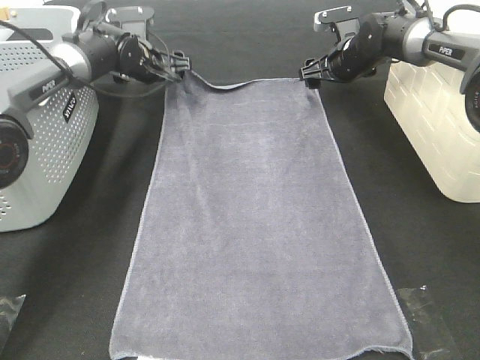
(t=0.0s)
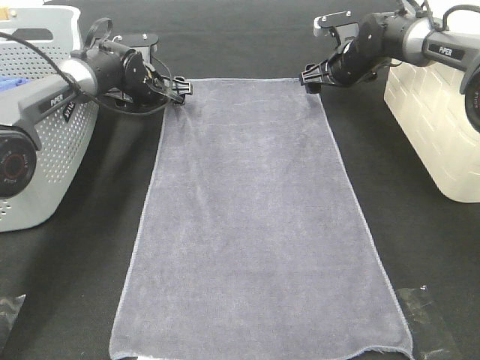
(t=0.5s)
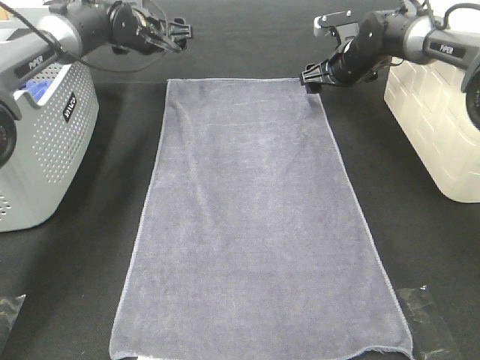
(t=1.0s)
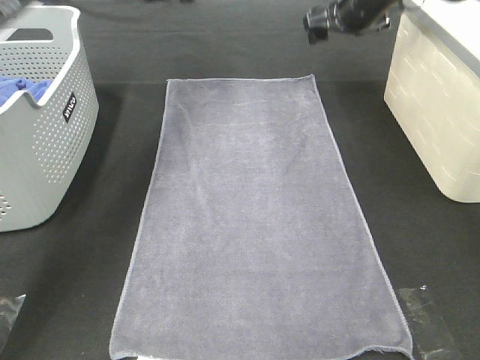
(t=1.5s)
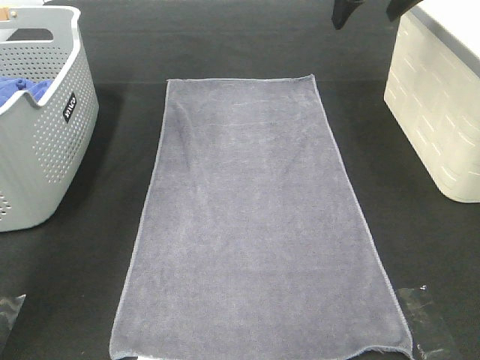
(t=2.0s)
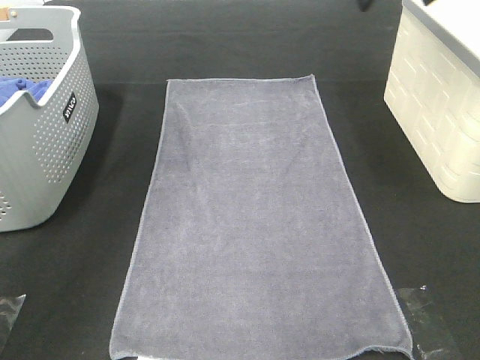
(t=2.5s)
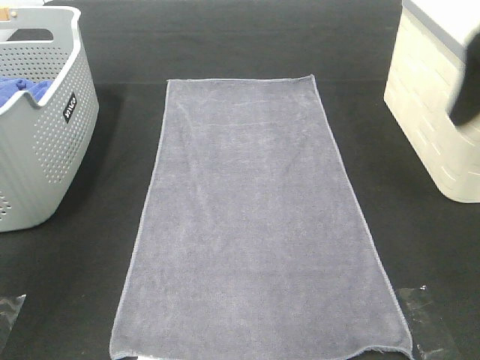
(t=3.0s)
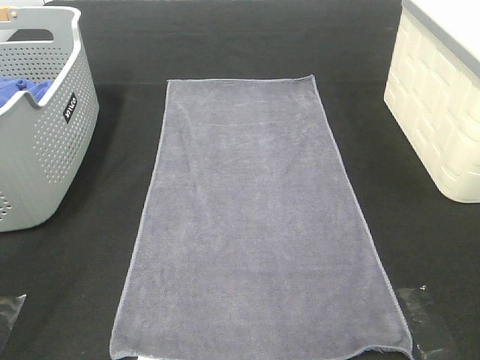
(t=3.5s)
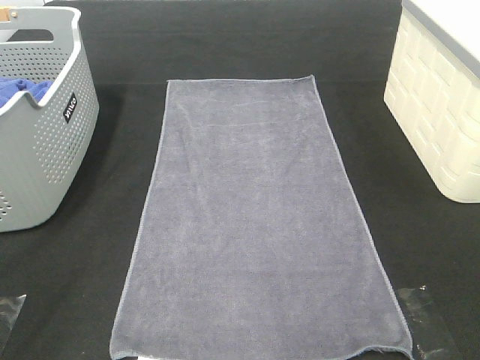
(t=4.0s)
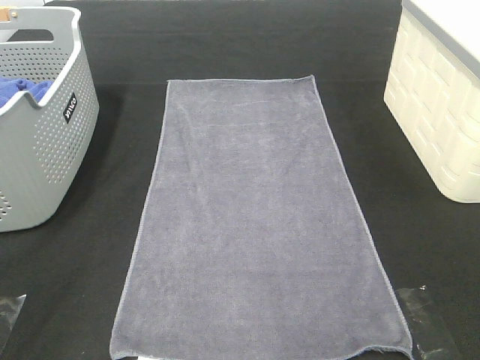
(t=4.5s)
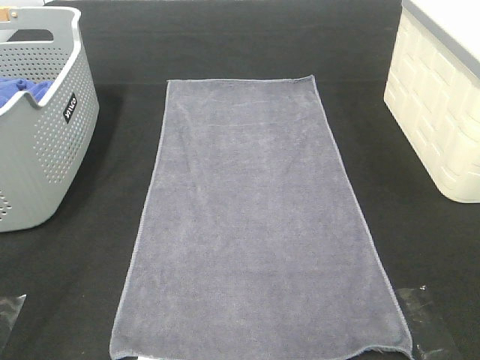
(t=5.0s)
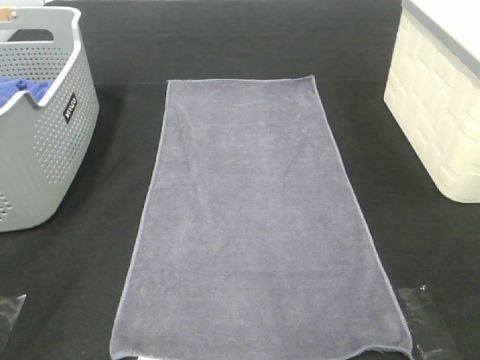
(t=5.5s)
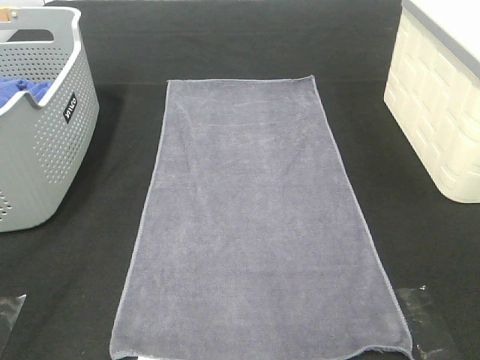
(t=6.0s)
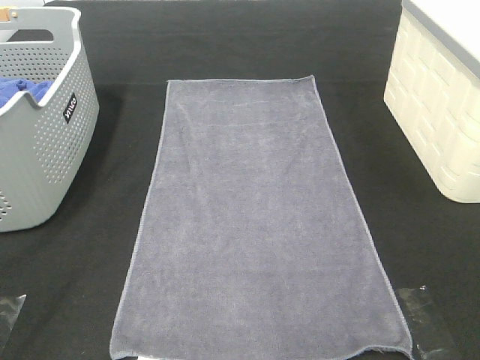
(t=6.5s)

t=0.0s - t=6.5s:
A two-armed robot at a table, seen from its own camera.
Task of the whole recording: Remove the towel and place it.
t=0.0s - t=2.0s: Both grippers move upward and backward, some 25 cm.
t=2.0s - t=4.5s: The two grippers go roughly 40 cm backward.

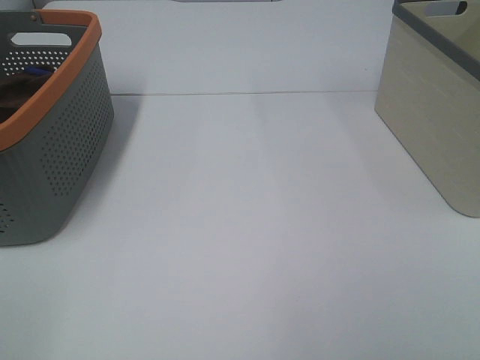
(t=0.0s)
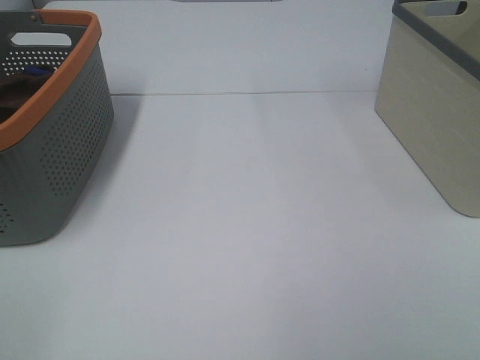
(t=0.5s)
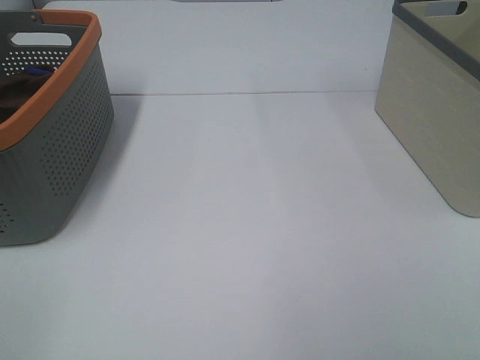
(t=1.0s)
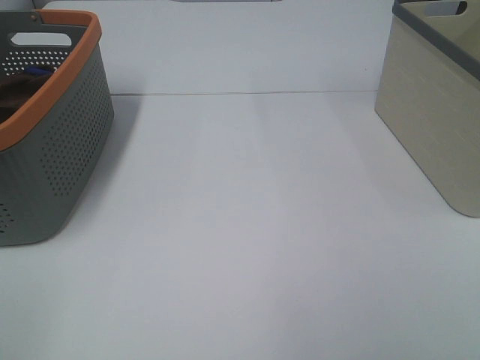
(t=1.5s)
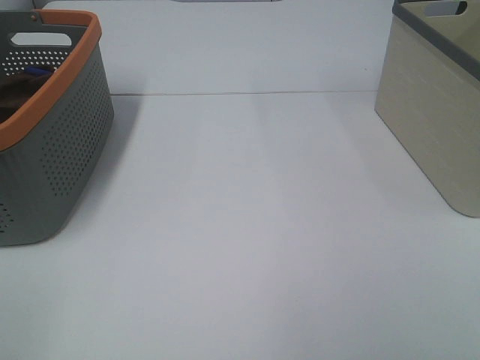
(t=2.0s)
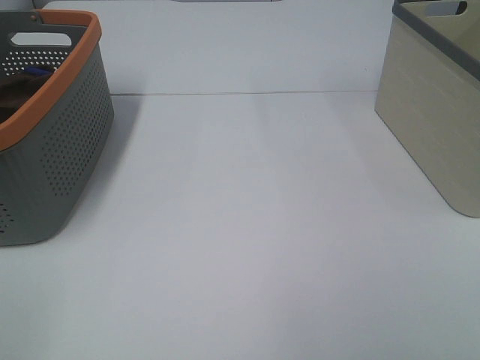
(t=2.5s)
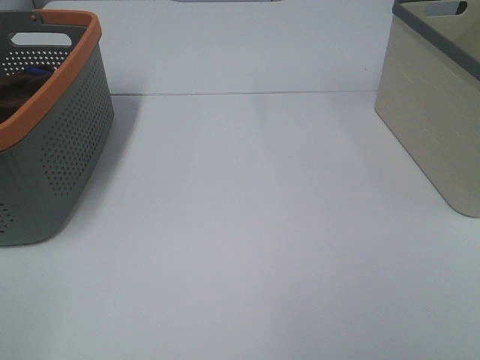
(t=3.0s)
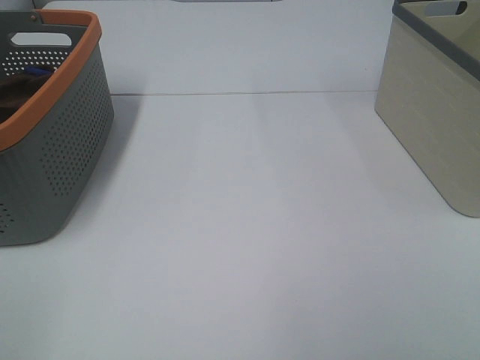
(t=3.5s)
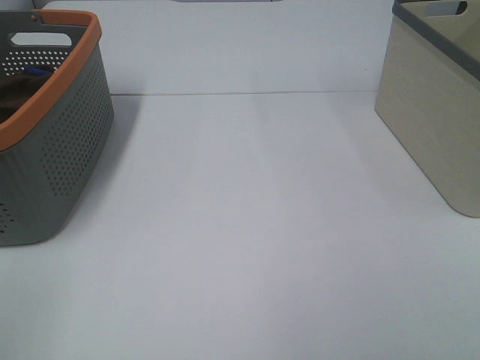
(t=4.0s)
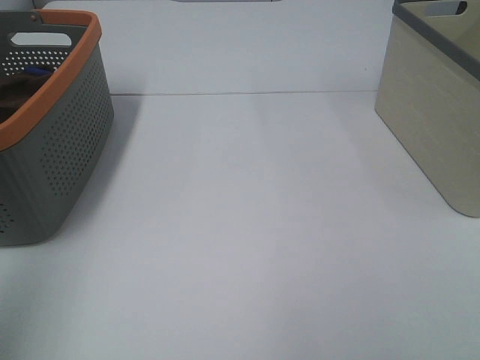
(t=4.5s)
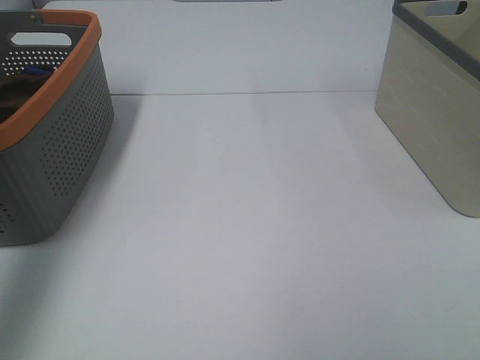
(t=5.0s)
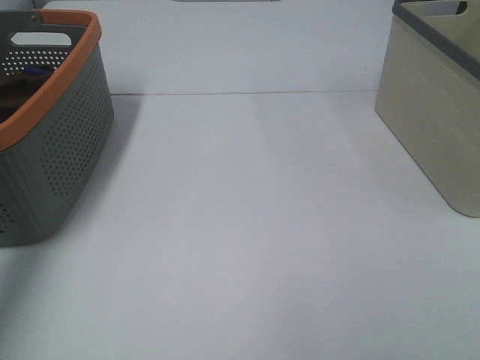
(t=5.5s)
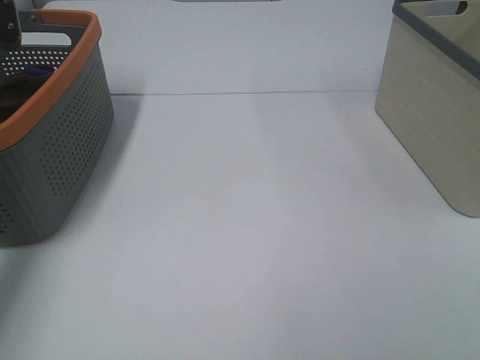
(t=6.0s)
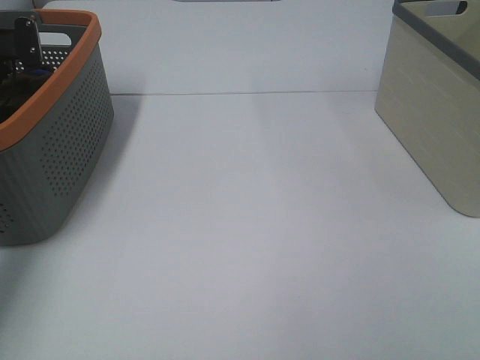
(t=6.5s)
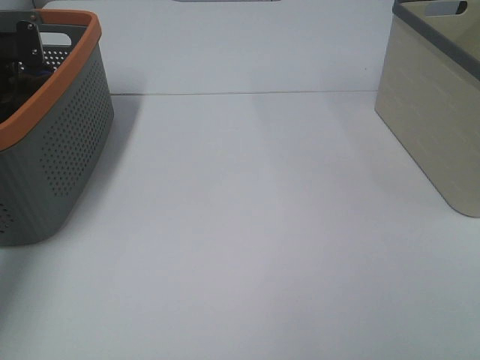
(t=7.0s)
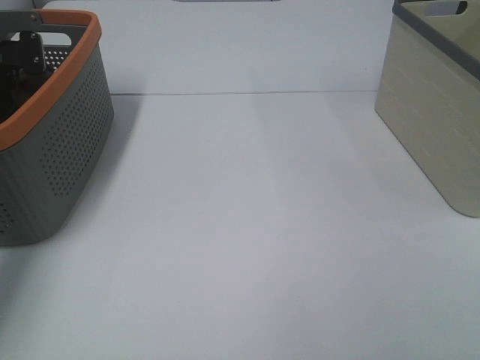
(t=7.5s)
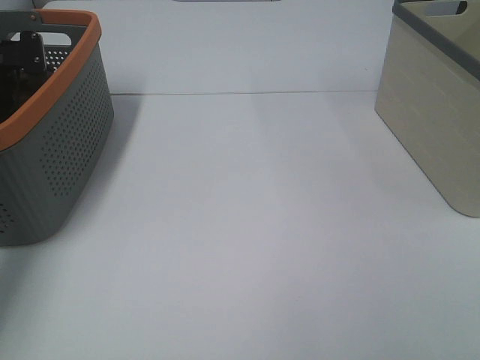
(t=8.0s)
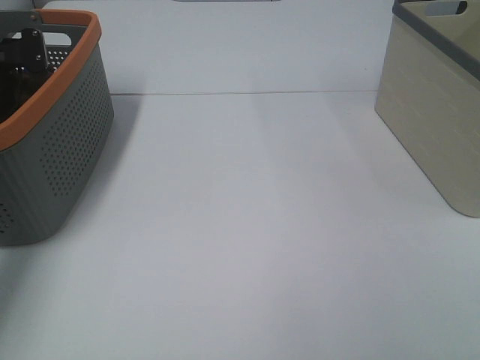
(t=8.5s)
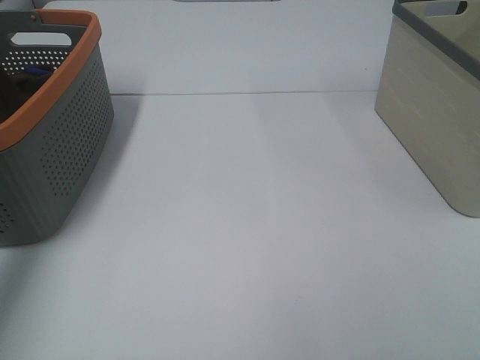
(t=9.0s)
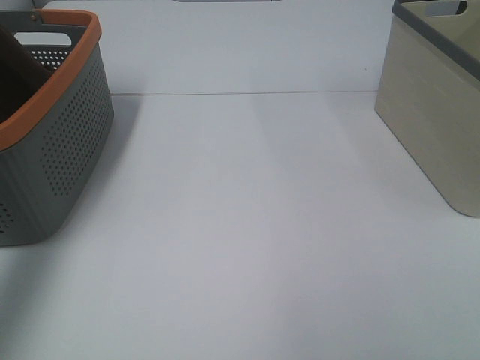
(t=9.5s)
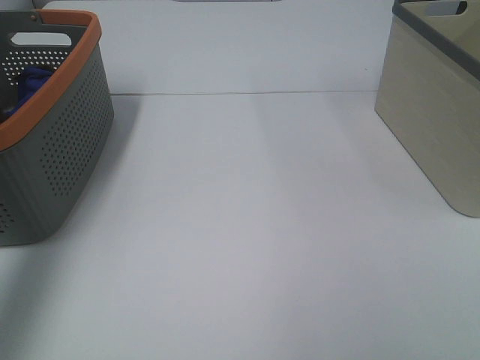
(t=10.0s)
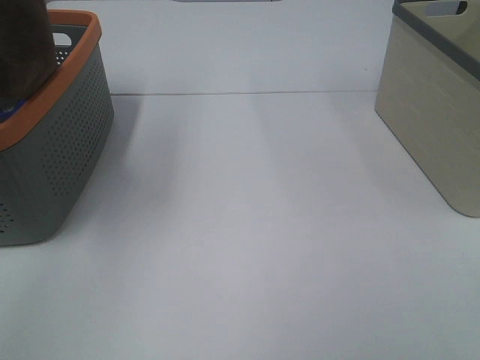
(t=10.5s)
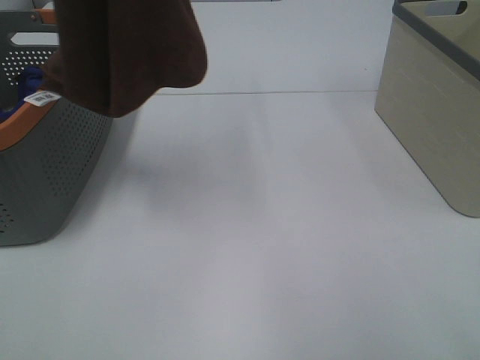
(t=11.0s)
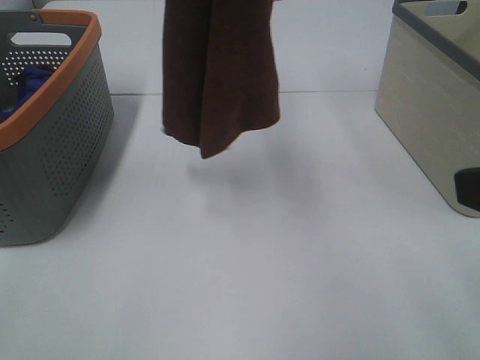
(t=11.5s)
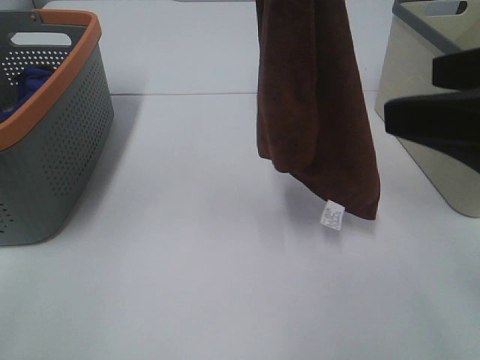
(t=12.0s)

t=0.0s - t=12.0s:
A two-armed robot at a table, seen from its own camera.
Task of the whole recording: Remove the towel and place it.
t=0.0s - t=2.0s: Both grippers stay about where they are.
t=4.0s - t=6.0s: The left gripper travels forward by some 40 cm.
t=6.0s - t=8.0s: The left gripper closes its fingers.
t=8.0s - t=10.0s: The left gripper is displaced upward and backward by some 40 cm.
t=10.0s - t=12.0s: The left gripper heads to the right, covering about 25 cm. The right gripper heads forward, covering some 15 cm.

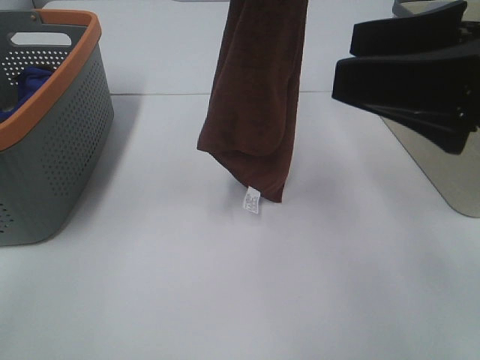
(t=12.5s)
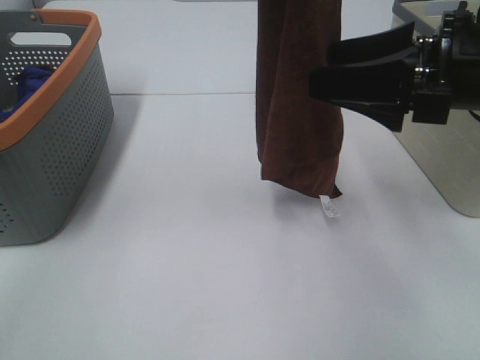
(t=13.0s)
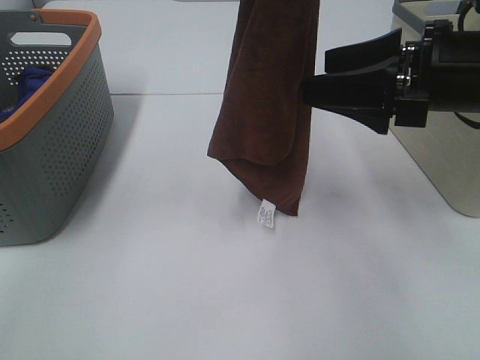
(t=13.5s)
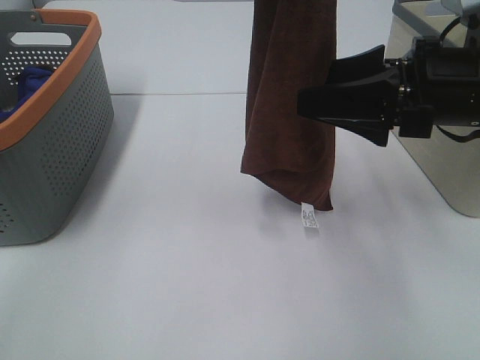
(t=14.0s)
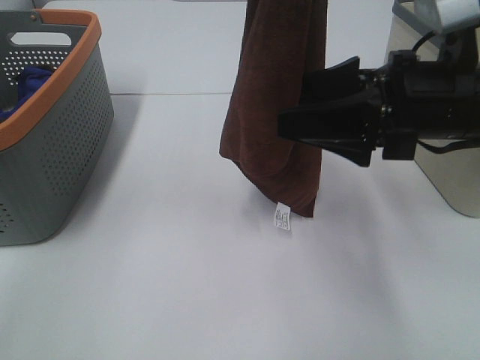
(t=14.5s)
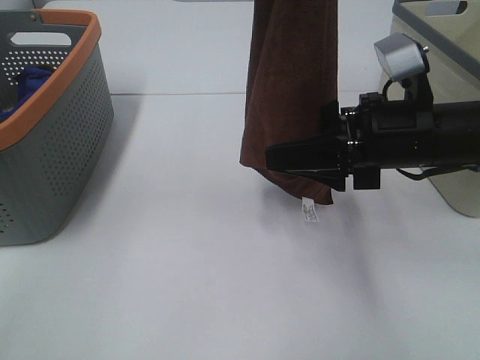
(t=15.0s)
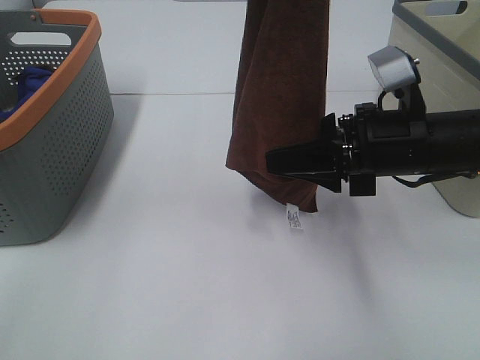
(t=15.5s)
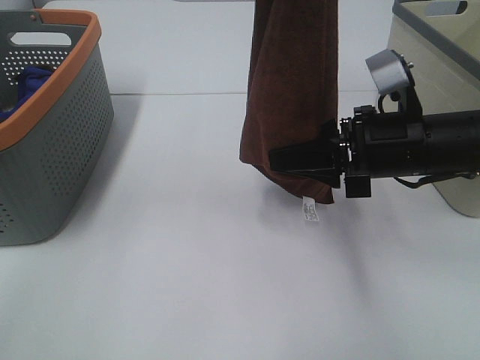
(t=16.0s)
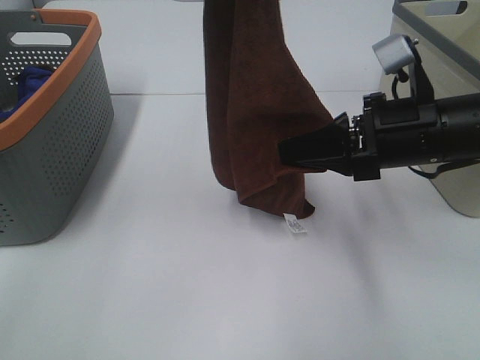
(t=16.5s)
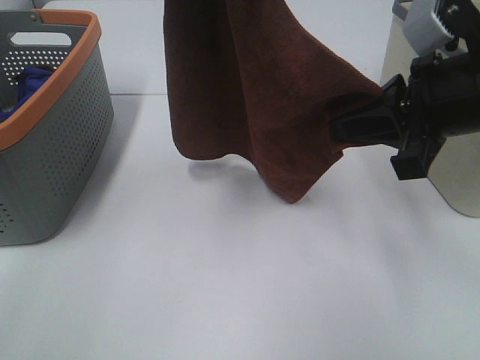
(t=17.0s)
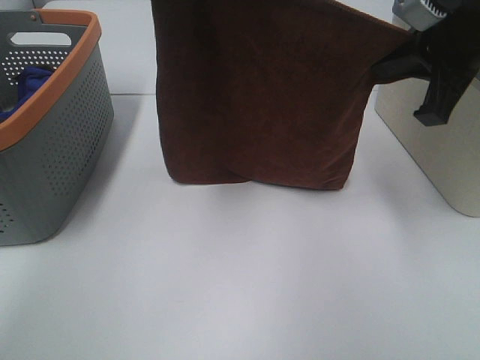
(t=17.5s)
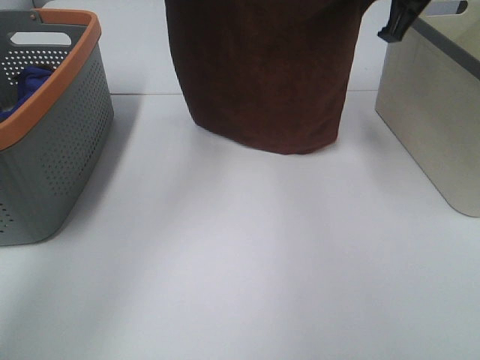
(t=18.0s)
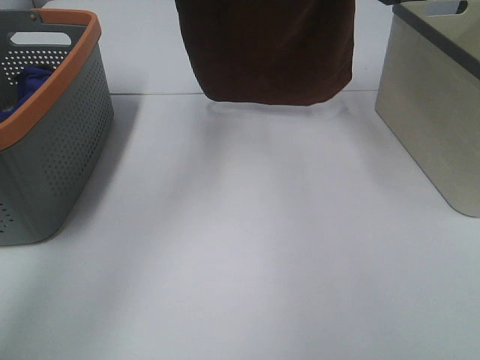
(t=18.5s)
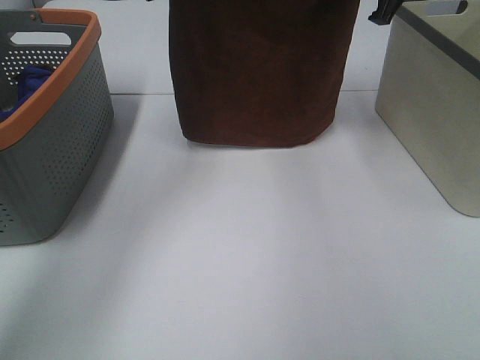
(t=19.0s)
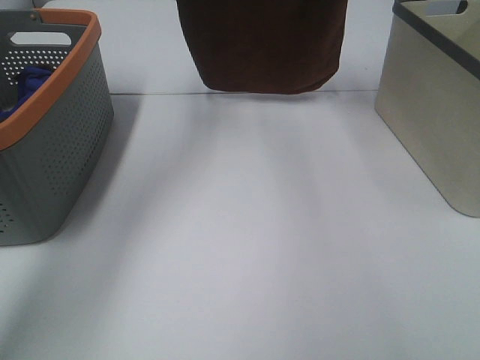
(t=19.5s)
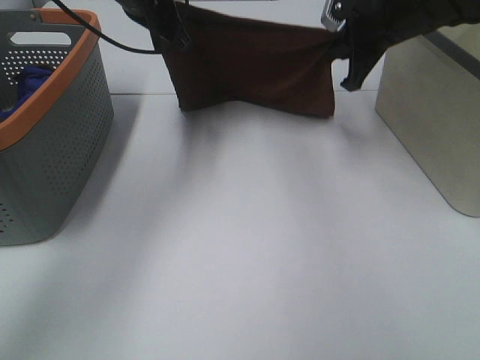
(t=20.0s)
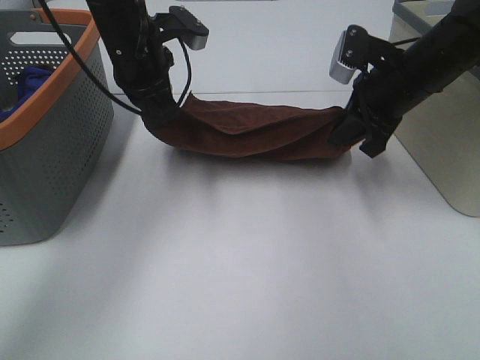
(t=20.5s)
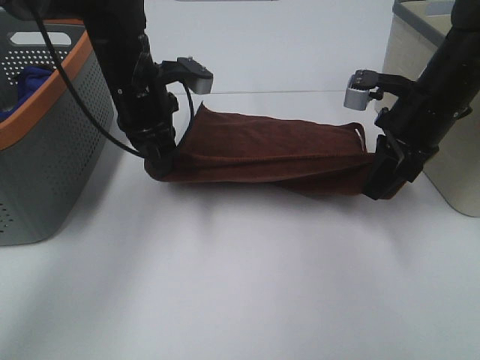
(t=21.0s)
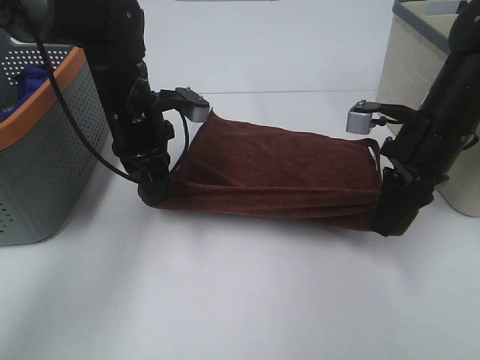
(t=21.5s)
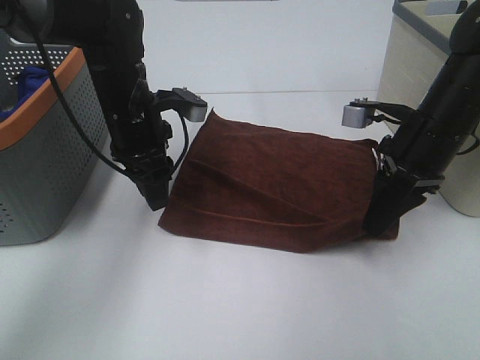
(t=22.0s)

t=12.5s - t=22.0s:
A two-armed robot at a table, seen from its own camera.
Task of the whole recording: Remove the towel and place it.
Step, t=14.5s - t=17.5s: Left hand: spread the brown towel flat on the table.
Step, t=14.5s - t=17.5s: Right hand: spread the brown towel flat on the table.
t=12.5s - t=14.5s: The right gripper moves downward and forward, about 10 cm.
t=14.5s - t=16.5s: The right gripper closes up.
t=16.5s - t=18.0s: The right gripper travels upward and forward by approximately 20 cm. The left gripper goes approximately 15 cm forward and downward.
t=18.0s - t=20.0s: The two grippers go approximately 10 cm downward.
t=20.0s - t=22.0s: The right gripper is displaced backward and downward by some 15 cm, and opens its fingers. The left gripper shifts approximately 15 cm downward and backward, and opens its fingers.
